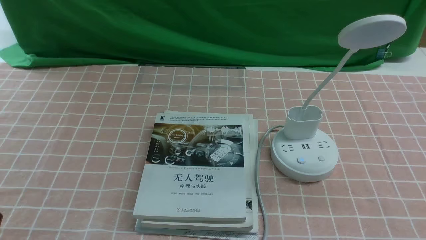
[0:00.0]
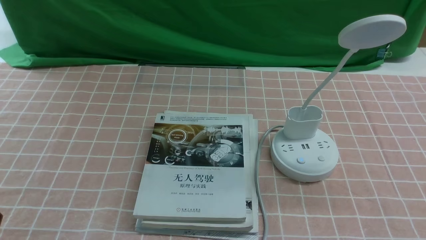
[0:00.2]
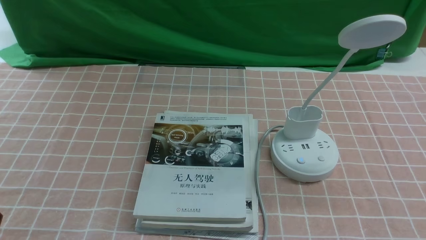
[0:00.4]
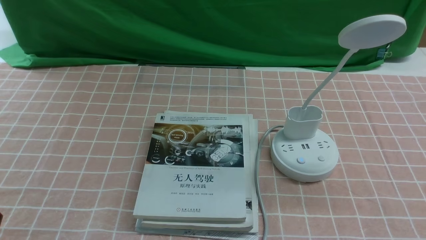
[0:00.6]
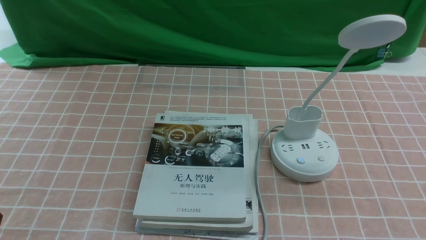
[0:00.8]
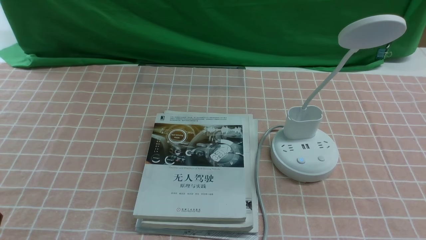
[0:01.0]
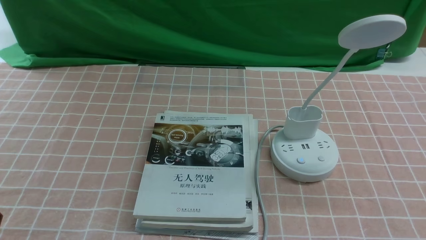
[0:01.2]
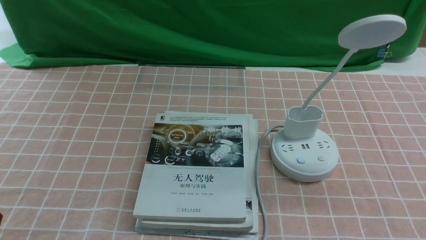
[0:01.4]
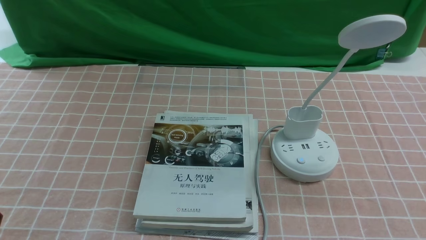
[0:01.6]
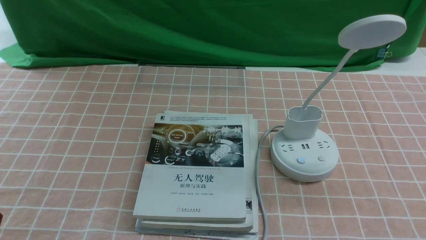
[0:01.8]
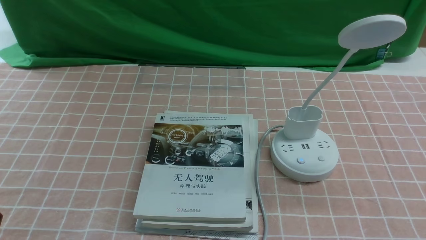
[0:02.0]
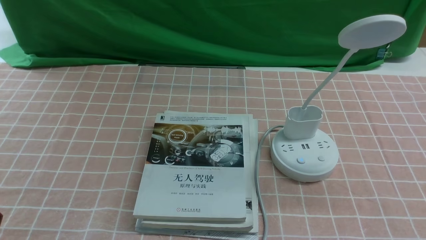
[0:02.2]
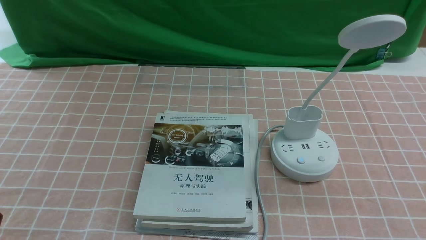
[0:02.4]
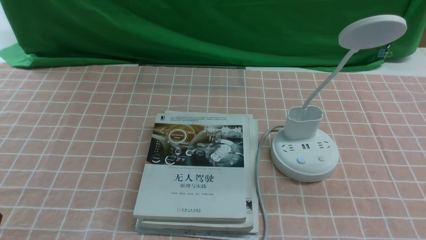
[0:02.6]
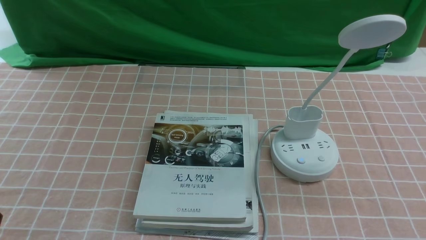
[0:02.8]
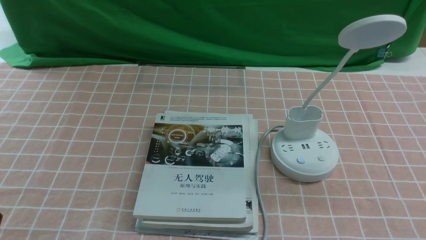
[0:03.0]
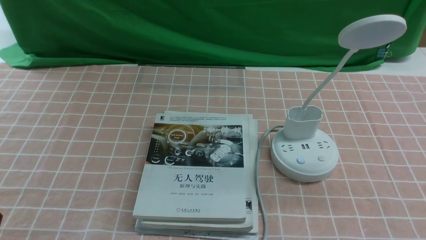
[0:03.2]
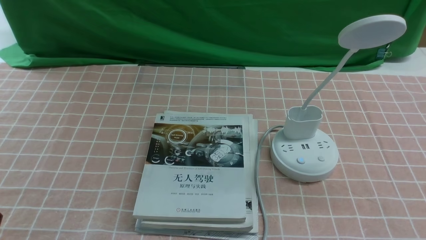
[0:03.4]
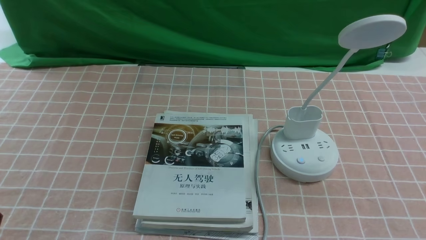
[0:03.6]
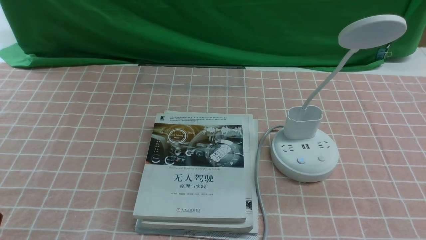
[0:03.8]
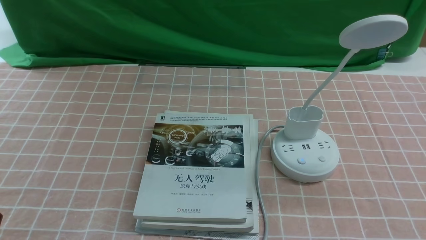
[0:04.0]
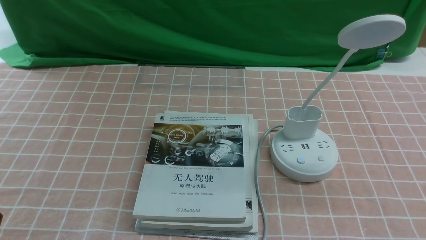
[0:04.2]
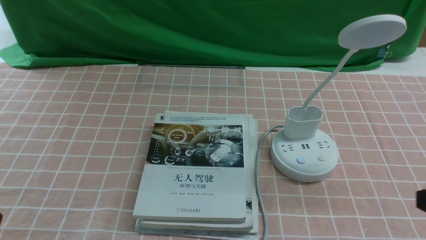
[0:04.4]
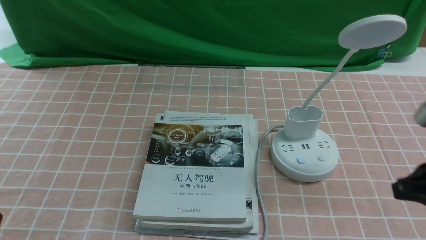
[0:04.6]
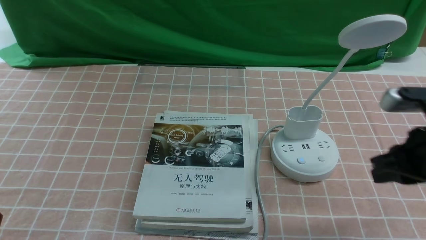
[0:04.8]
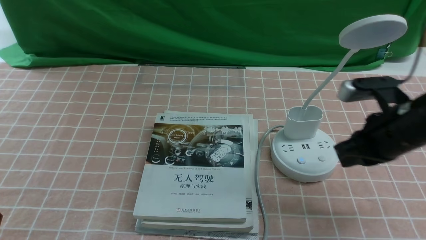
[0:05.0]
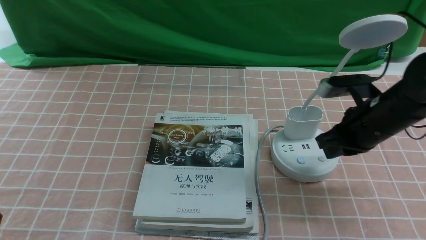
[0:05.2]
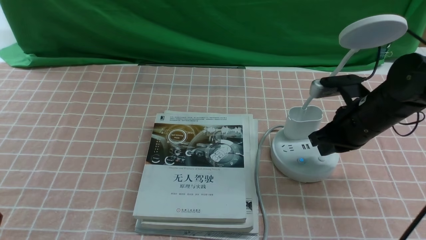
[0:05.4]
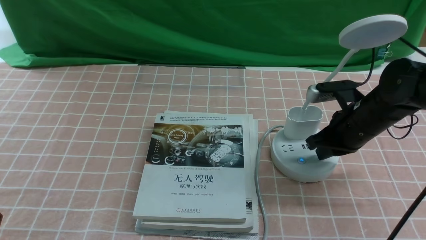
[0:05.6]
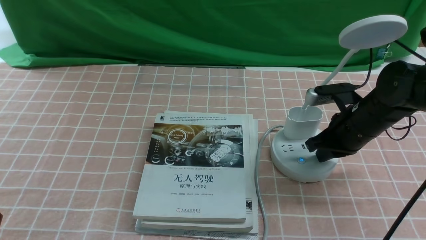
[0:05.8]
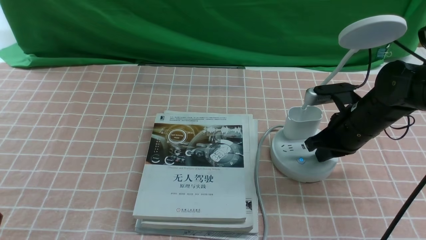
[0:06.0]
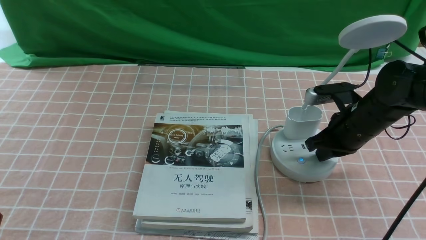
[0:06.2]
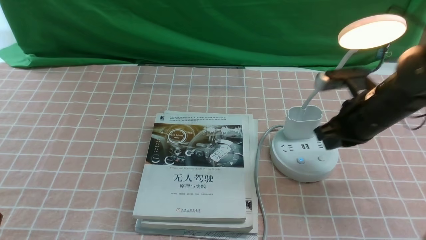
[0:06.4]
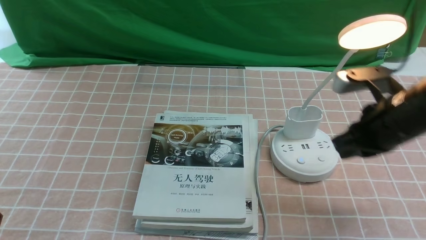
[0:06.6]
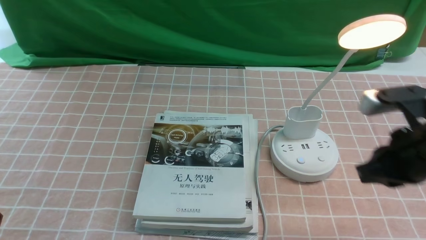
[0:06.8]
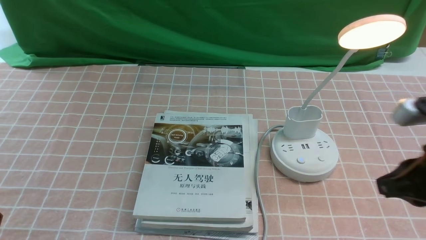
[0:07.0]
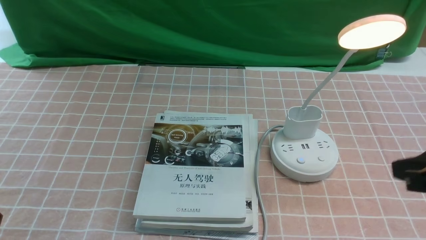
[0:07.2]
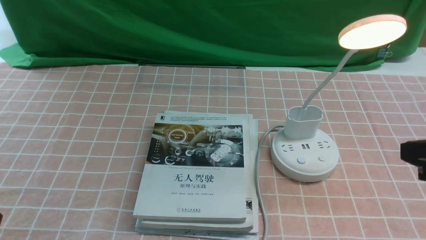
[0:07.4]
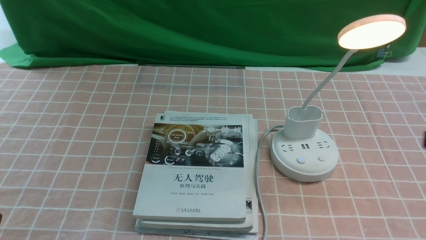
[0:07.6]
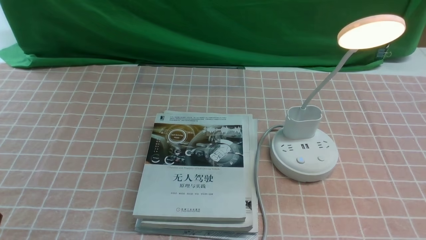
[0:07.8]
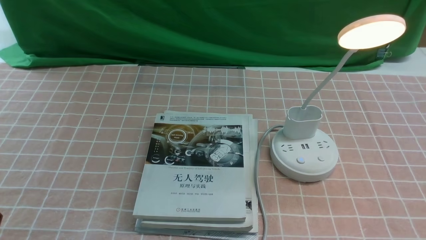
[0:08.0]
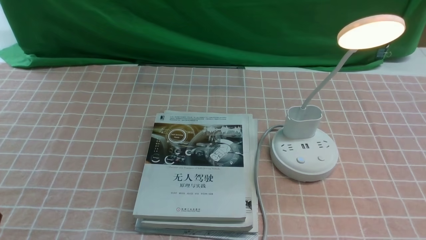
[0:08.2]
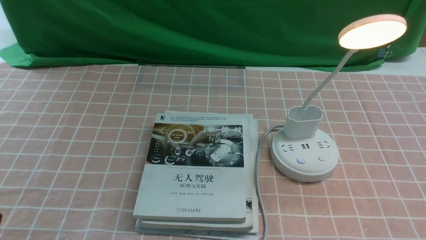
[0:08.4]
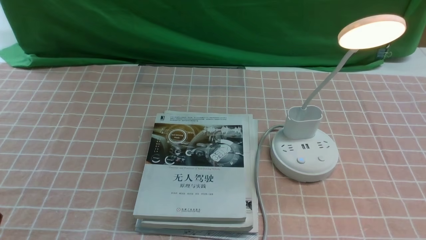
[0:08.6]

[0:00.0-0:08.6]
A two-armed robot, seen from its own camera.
Step, 0:00.0 to 0:06.4: use the right arm to press the button switch on the lamp holder.
0:00.0 to 0:01.4: Neither gripper changes place.
0:04.4 to 0:05.8: The right gripper moves forward and downward, roughly 25 cm.
0:05.8 to 0:07.2: The right gripper moves backward and upward, roughly 25 cm.
0:07.2 to 0:08.6: The right gripper travels downward and backward by about 15 cm.
